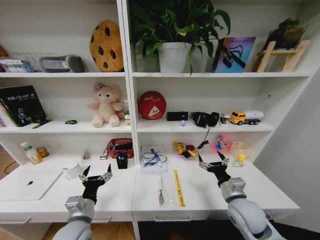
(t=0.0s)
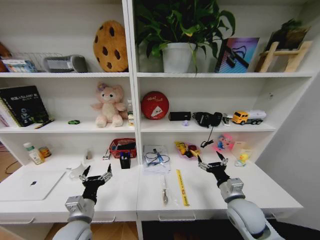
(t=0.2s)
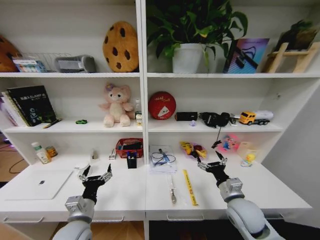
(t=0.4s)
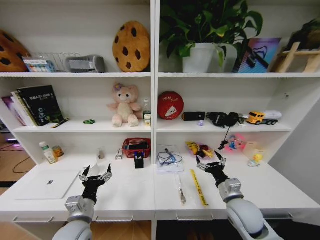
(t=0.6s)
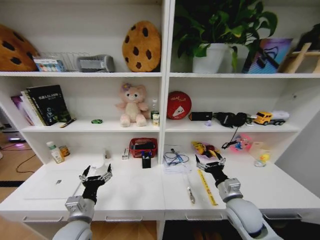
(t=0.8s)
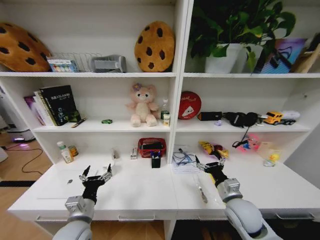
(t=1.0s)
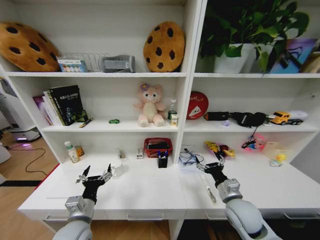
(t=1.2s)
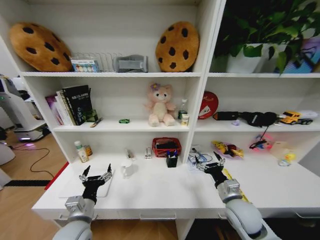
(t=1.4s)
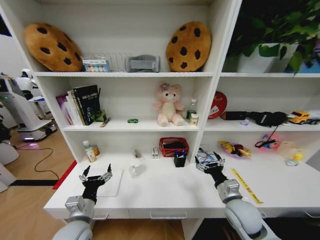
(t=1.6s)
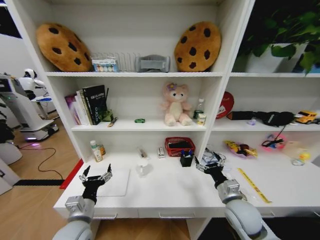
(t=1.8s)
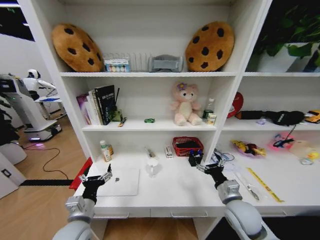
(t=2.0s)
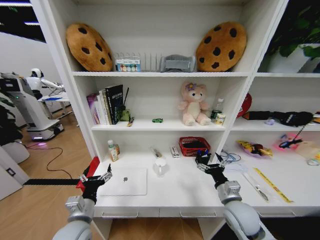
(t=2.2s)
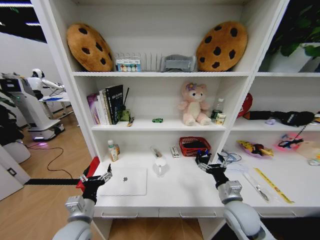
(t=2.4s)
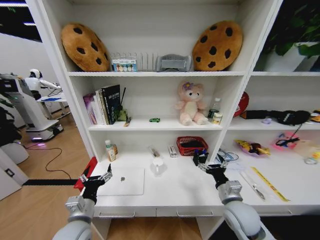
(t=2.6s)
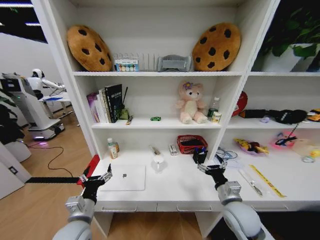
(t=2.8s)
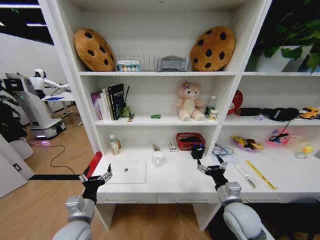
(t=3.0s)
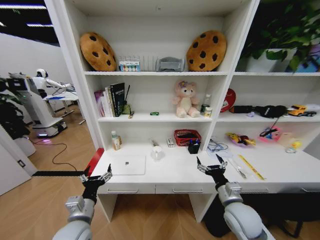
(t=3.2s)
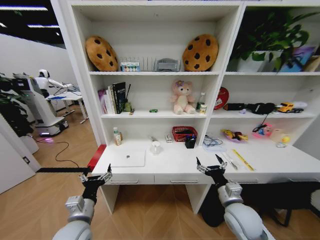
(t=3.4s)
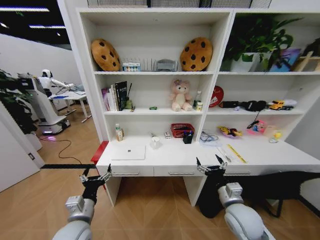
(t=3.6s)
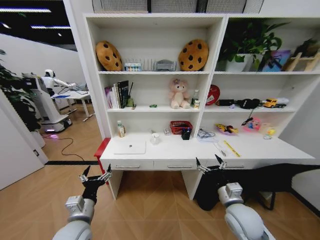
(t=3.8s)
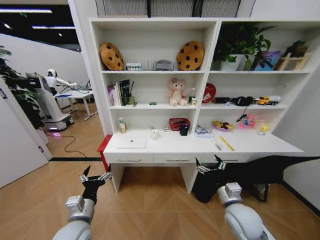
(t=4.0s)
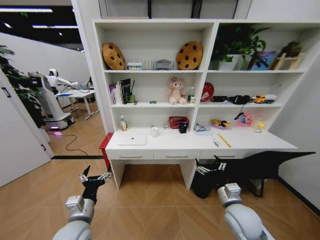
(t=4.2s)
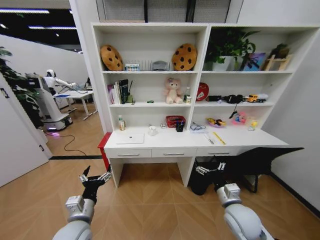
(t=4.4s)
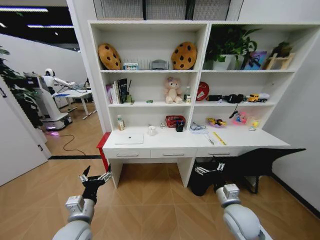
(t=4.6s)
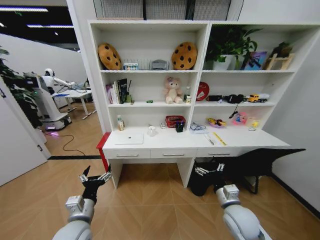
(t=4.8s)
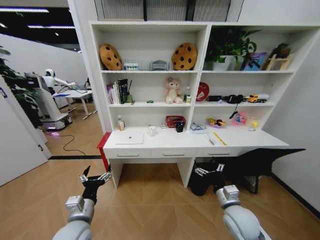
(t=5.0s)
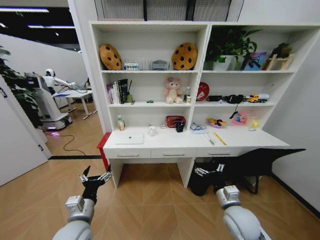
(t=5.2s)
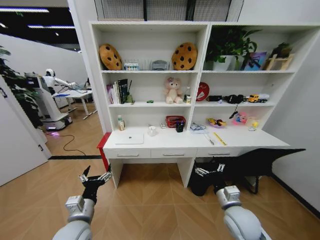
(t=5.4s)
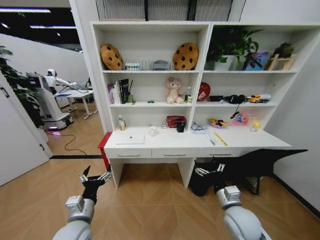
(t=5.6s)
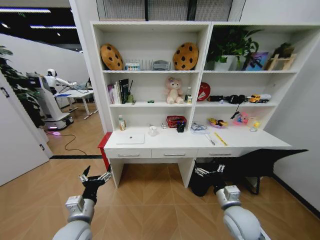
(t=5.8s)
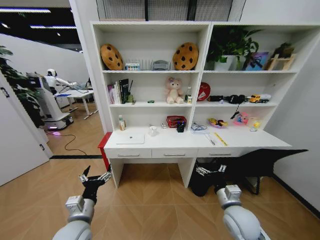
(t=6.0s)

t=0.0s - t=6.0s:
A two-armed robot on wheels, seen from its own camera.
Task of the whole recording: Organize the objects on the table.
t=4.4s - t=6.0s: Both grippers stay about where they are.
